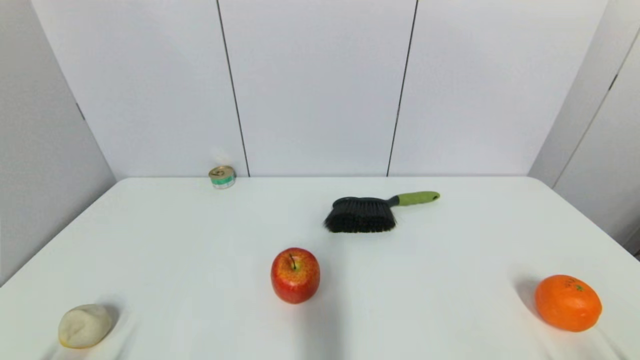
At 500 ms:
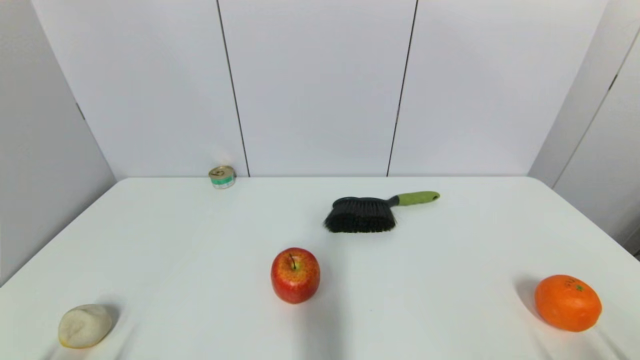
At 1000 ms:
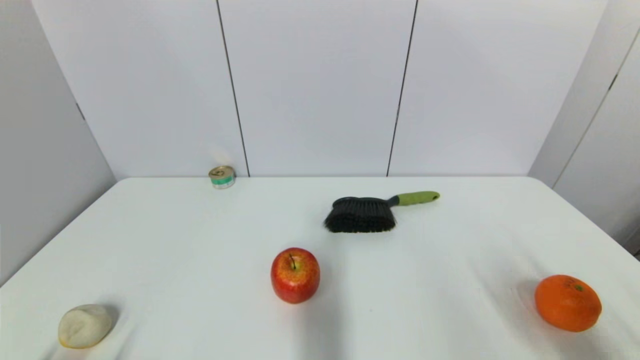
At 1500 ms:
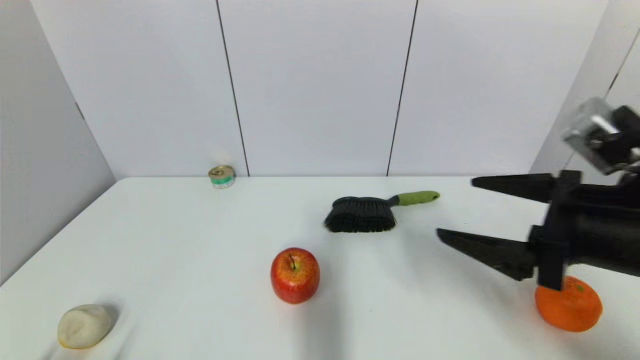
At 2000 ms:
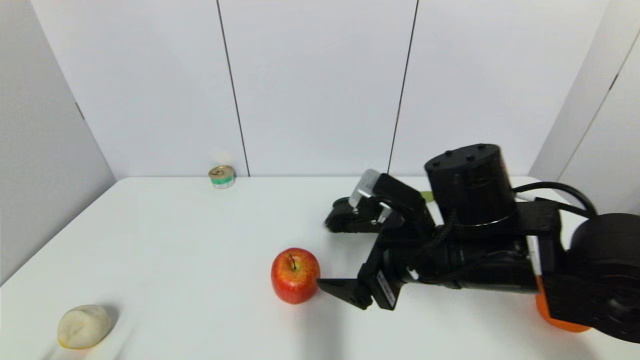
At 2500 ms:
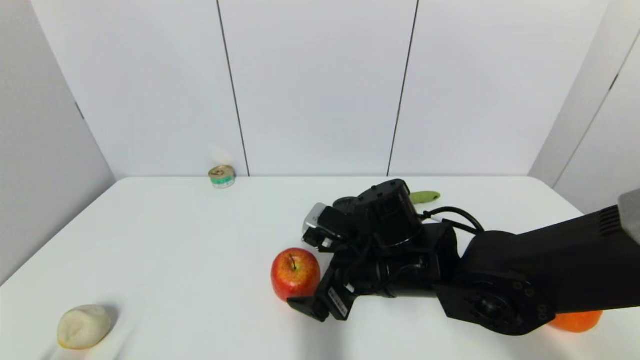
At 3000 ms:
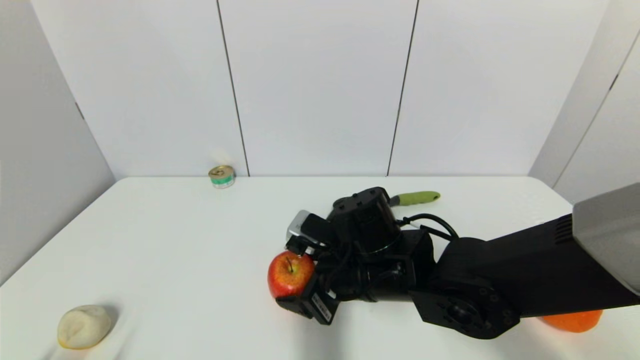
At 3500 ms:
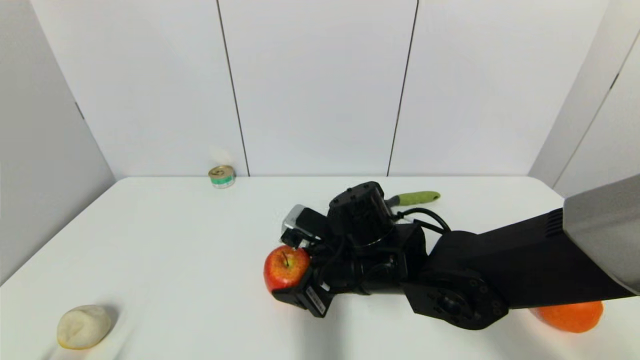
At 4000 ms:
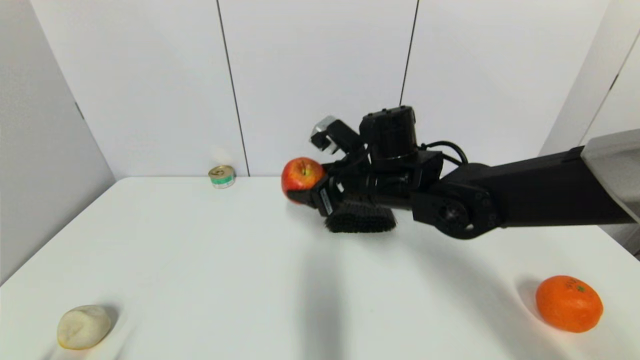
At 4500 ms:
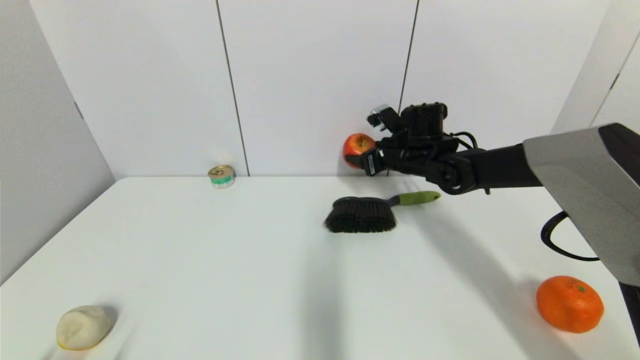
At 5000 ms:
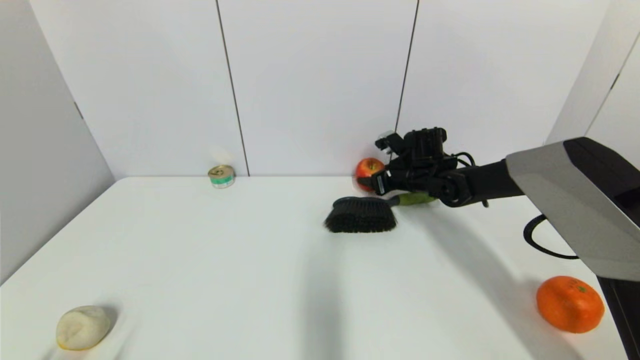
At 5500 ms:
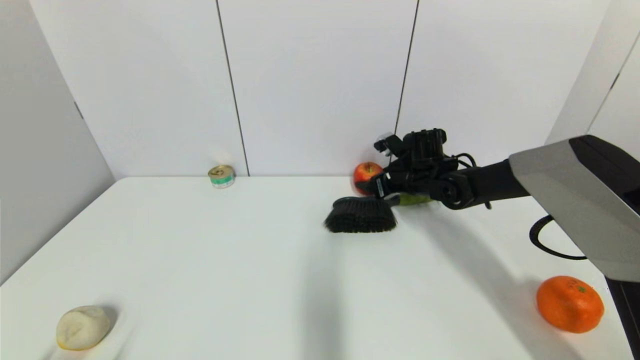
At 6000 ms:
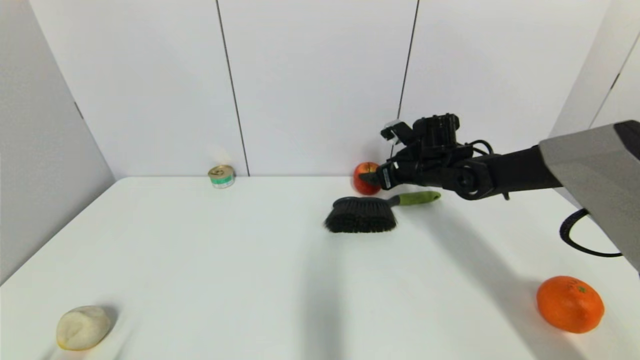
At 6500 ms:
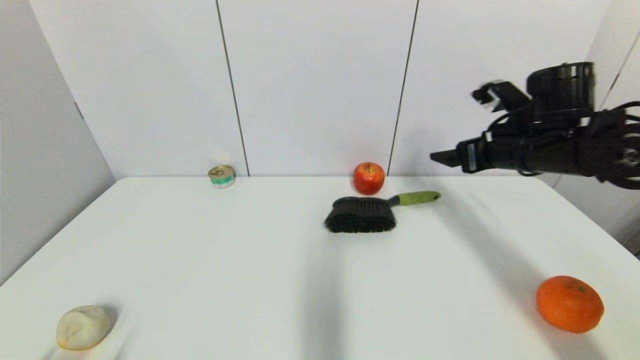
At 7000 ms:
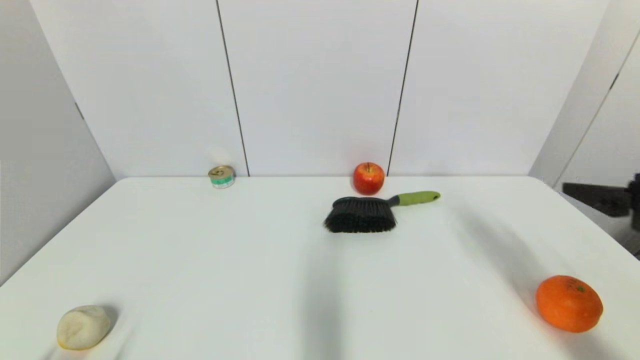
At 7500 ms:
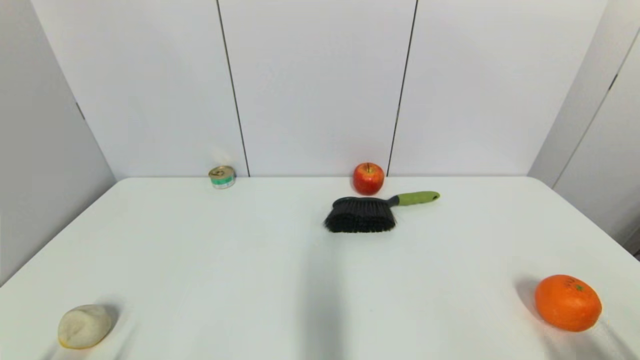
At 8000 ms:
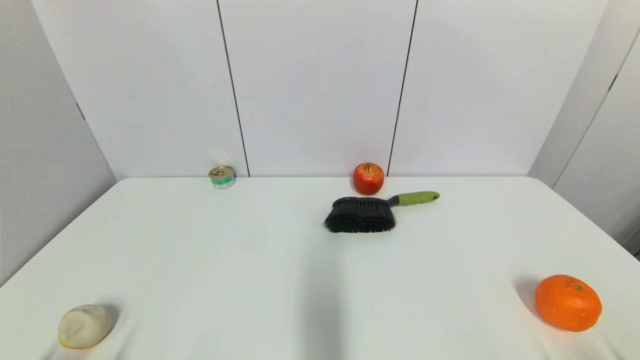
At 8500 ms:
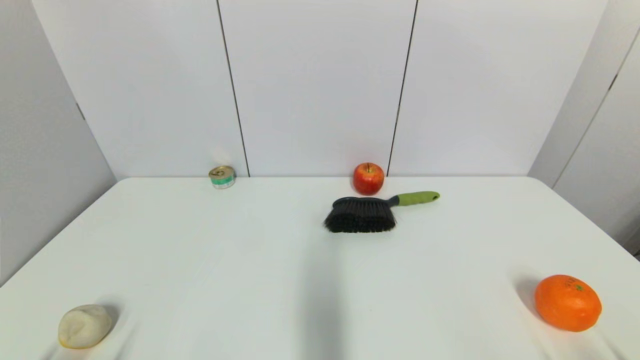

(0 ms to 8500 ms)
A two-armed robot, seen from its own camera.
Task of the whole recording: put the apple in the designated position.
Step, 1500 ms - 3000 ms: Grasp the apple with right gripper.
Step, 3500 ms - 6000 ms: Place the apple on the table with right gripper.
0 ms - 2000 ms: The right gripper travels forward, to the left and upward by some 35 cm.
2000 ms - 4000 ms: The right gripper shifts about 15 cm forward, and closes its fingers.
4000 ms - 6500 ms: The right gripper is displaced to the right by roughly 20 cm, and opens up.
6500 ms - 8500 ms: The right gripper is displaced backward and downward by approximately 40 cm.
